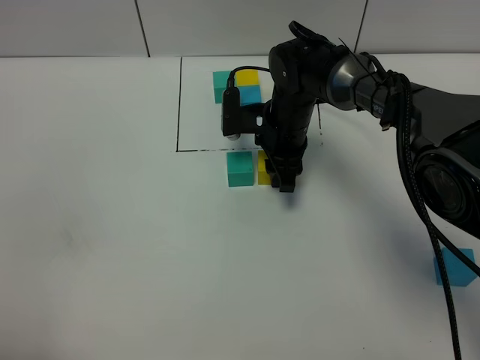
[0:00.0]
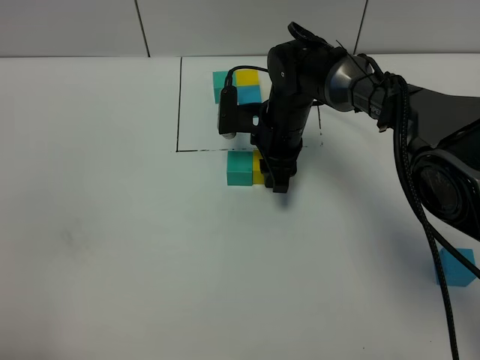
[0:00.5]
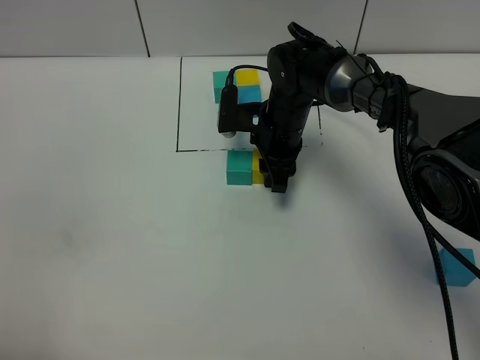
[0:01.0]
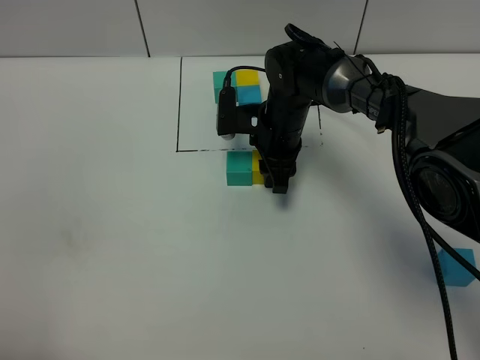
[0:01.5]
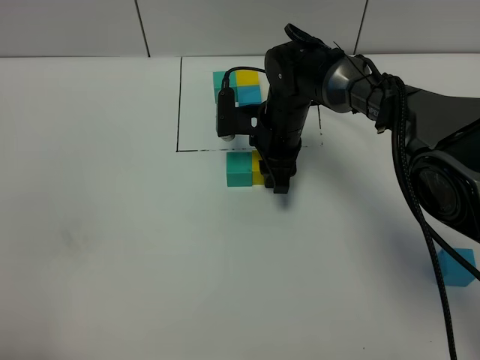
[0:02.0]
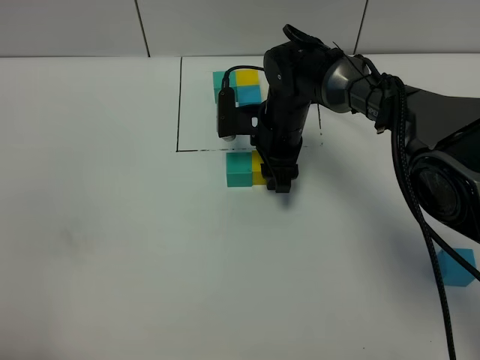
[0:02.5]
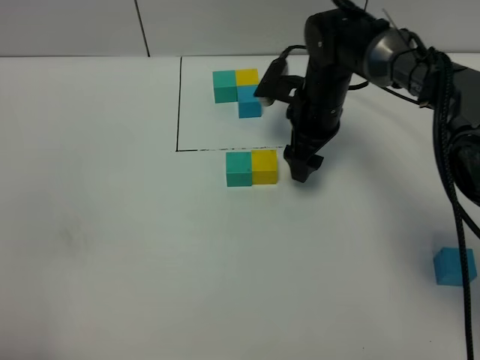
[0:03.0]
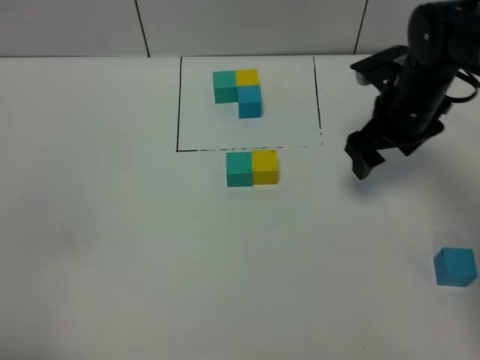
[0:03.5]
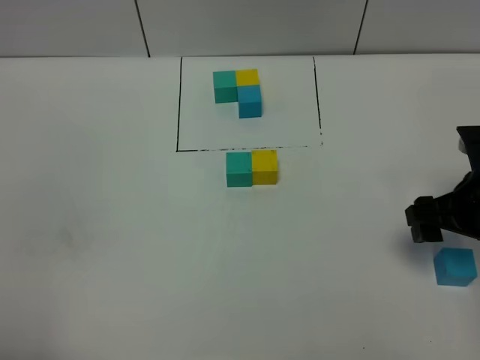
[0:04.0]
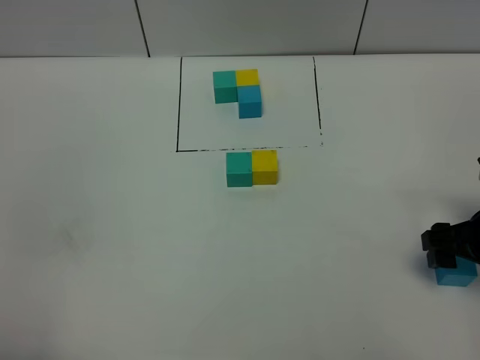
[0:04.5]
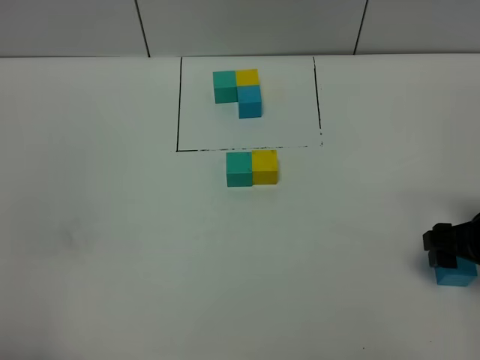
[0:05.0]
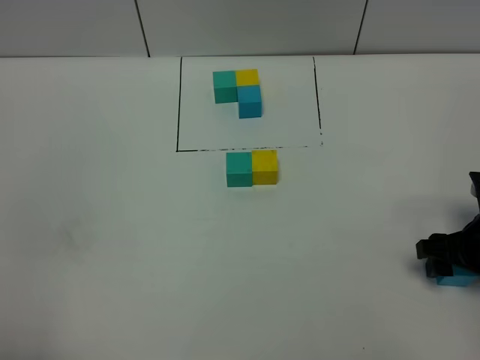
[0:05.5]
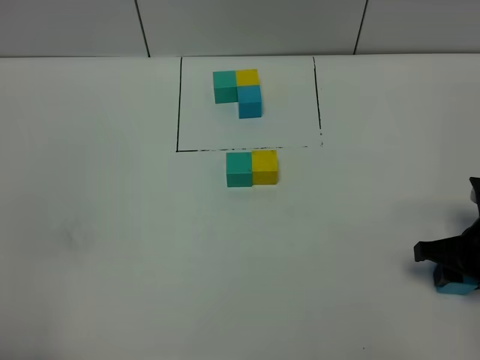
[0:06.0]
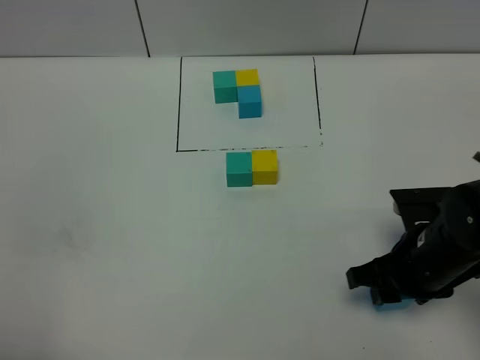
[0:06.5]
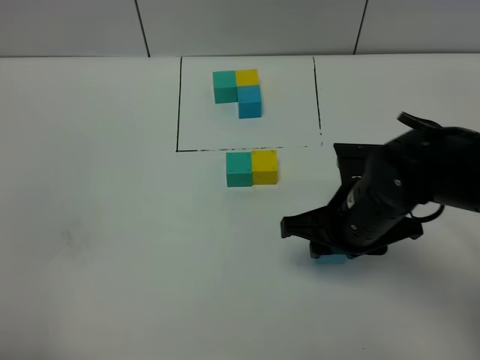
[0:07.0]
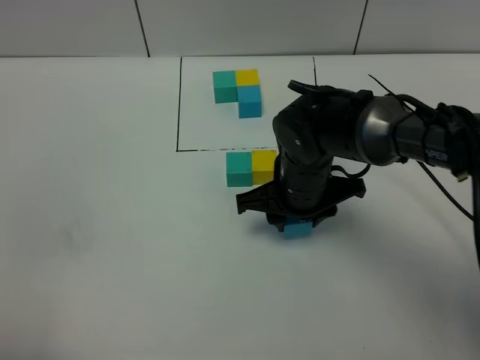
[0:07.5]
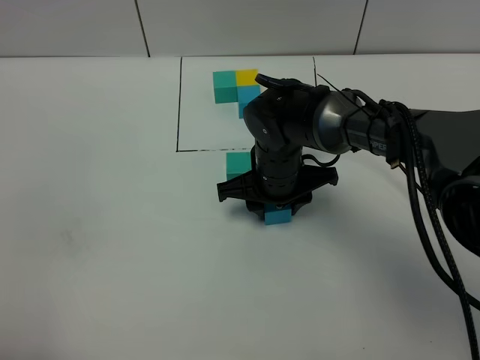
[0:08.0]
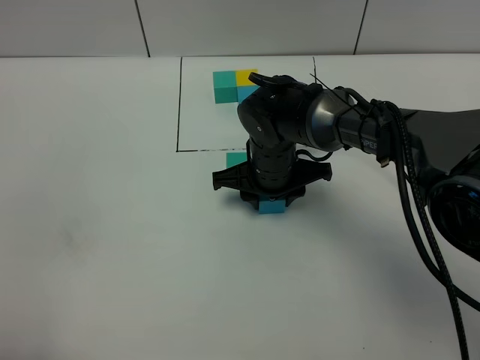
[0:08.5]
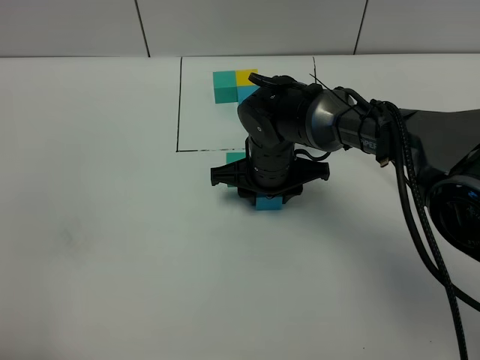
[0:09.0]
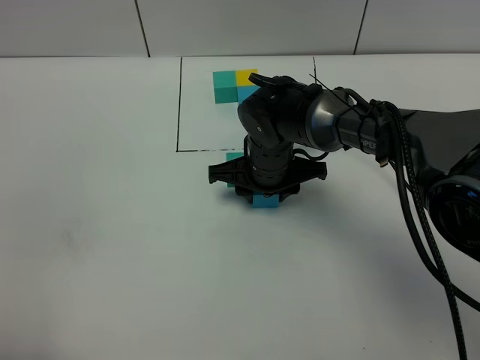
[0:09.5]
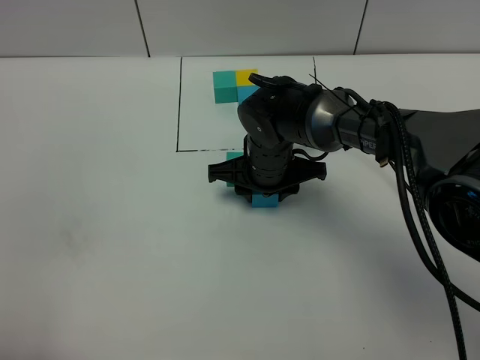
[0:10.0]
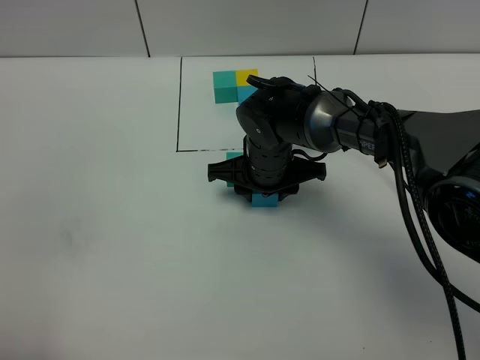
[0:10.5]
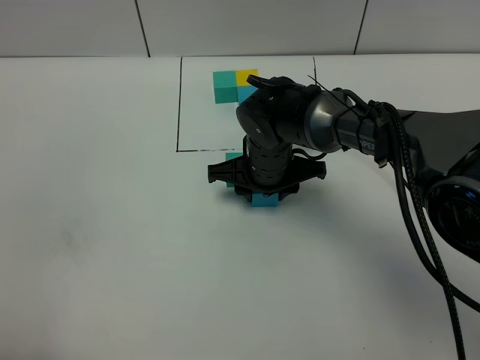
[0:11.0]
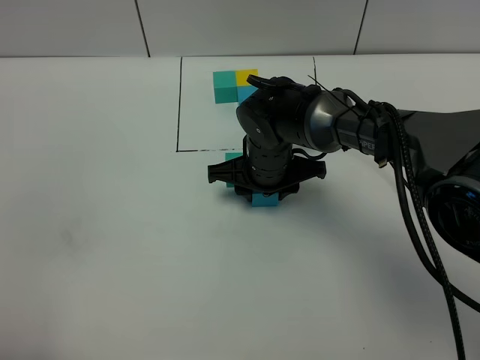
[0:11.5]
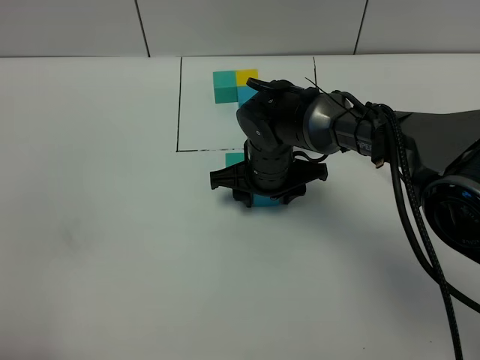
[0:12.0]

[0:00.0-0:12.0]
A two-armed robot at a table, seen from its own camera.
Task of the whole recording: According to the building block template in front, assemble the scattered blocks together.
Step, 0:00.0 to 0:02.5: Put the yellow build block on the right of the green build block.
Step, 0:03.0 to 0:12.0: Put the blue build block on the behind of the yellow build block.
0:00.0 to 0:02.0: Both grippers stay about where they are.
0:02.0 to 0:04.0: The right gripper shifts approximately 30 cm to the right and backward, and opens.
0:04.0 to 0:06.0: The right gripper is displaced downward by roughly 5 cm, and closes.
0:06.0 to 0:08.0: The right gripper shifts about 30 cm to the left and forward.
0:08.0 to 0:10.0: The grippers stay close to where they were, moving slightly.
0:10.0 to 0:12.0: The two grippers keep their place.

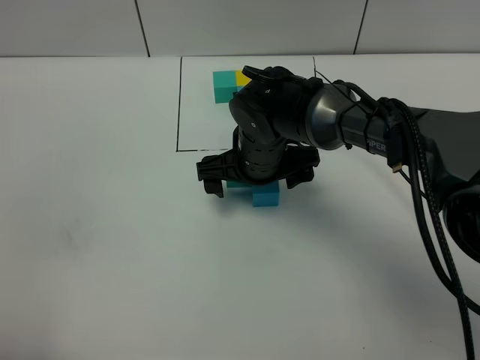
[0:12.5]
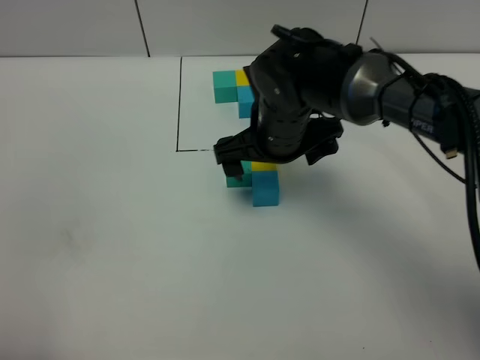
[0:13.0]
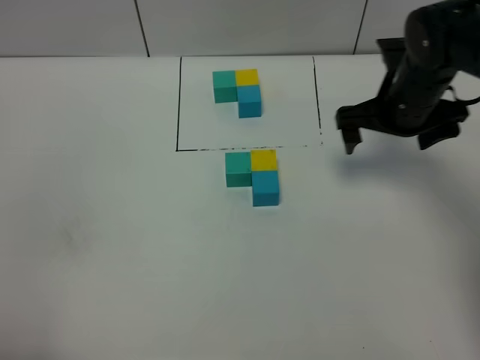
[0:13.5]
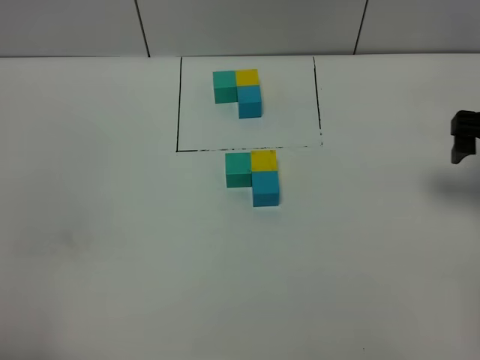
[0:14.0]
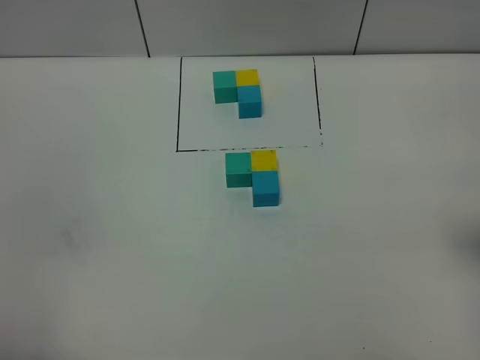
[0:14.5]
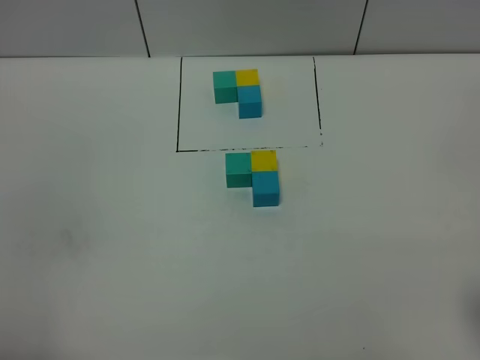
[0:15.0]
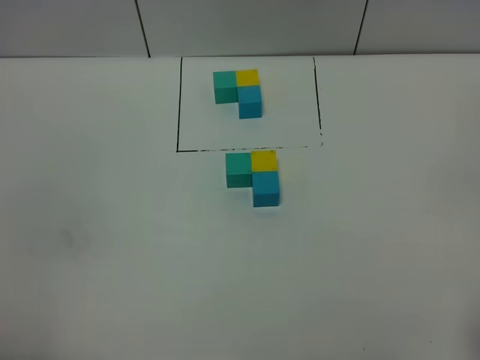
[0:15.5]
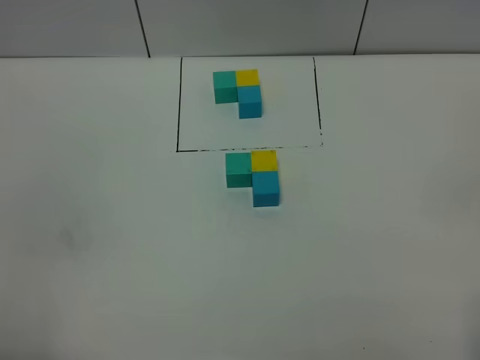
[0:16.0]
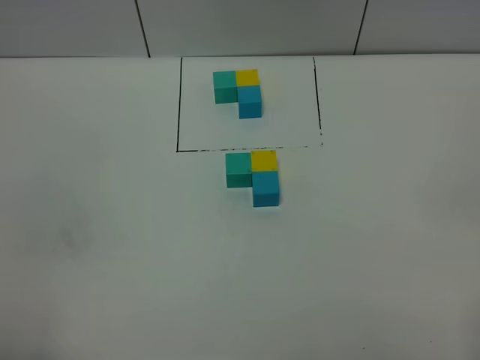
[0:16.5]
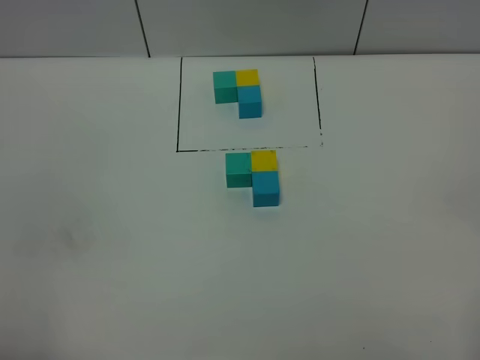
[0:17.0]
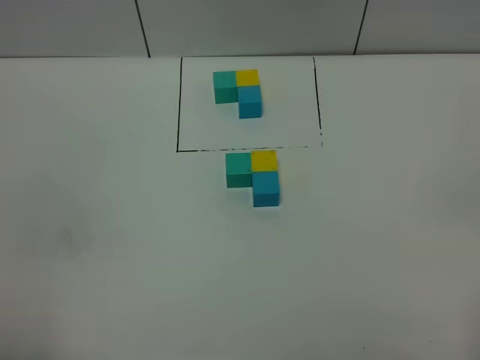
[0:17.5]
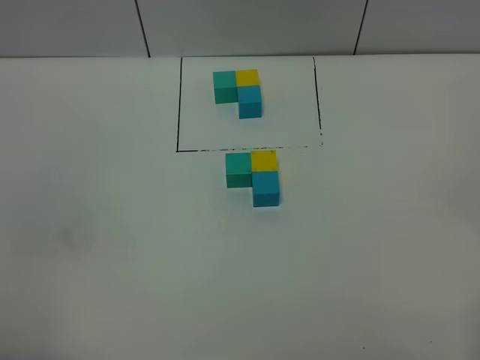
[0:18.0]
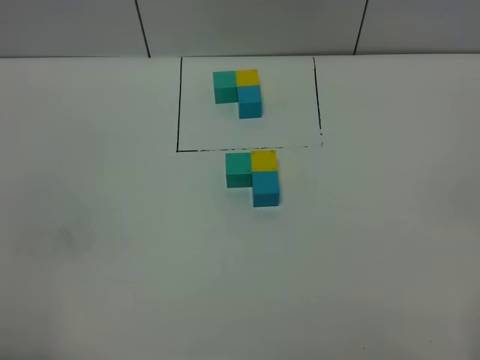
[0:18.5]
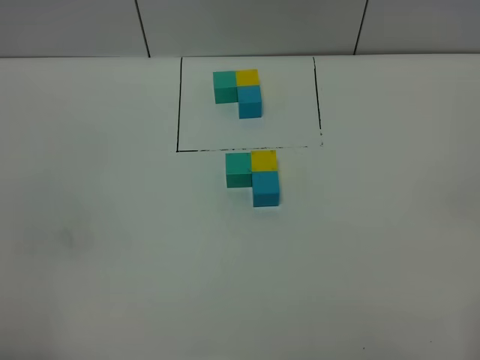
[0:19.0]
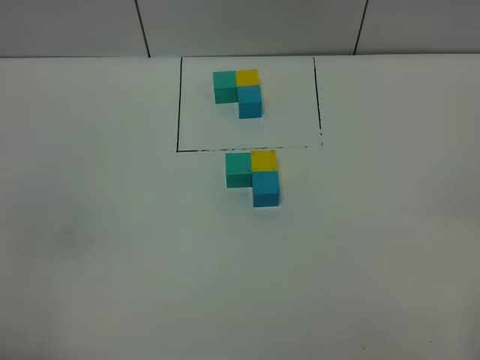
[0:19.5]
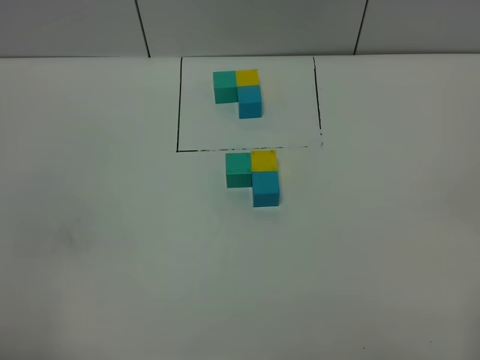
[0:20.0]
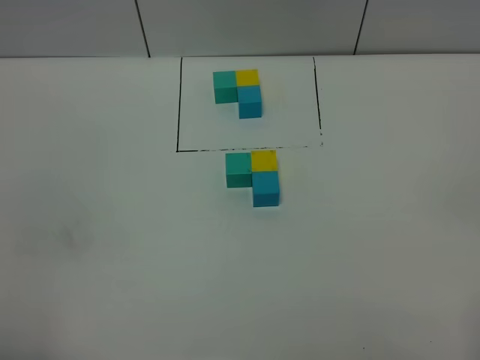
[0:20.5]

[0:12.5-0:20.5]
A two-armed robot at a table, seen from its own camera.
Task of the whole recording: According to the building block template in front, assemble the scattered blocks together.
0:12.5 to 0:14.5: The right gripper moves to the right, backward and upward, about 35 cm.
0:16.5 to 0:20.5: Neither gripper changes place.

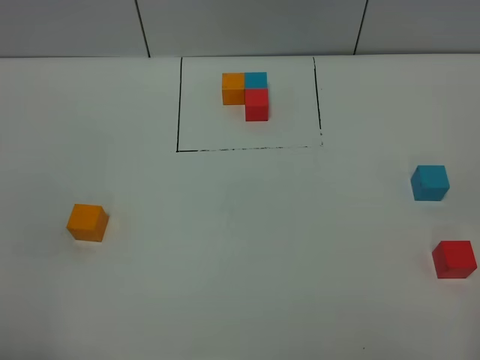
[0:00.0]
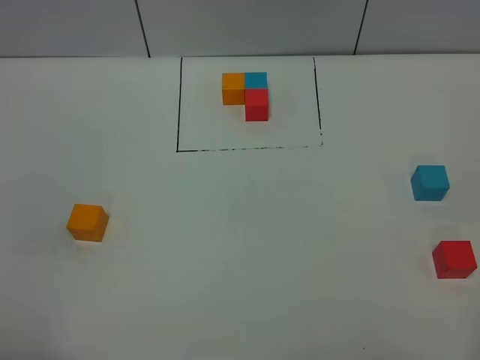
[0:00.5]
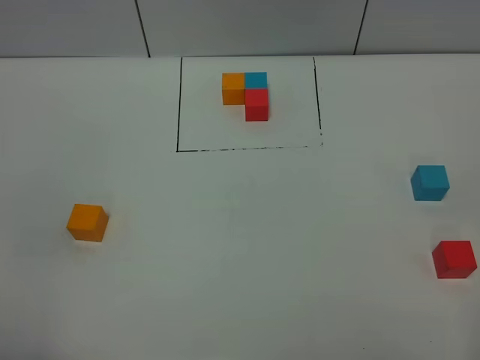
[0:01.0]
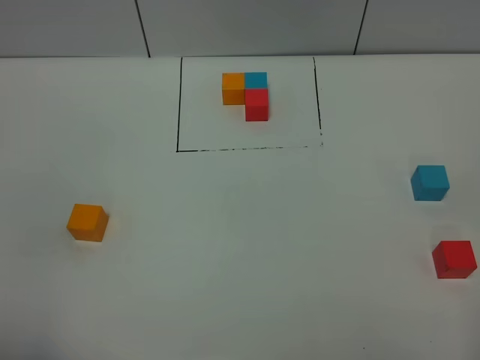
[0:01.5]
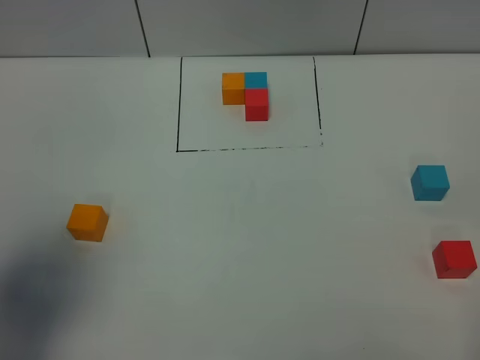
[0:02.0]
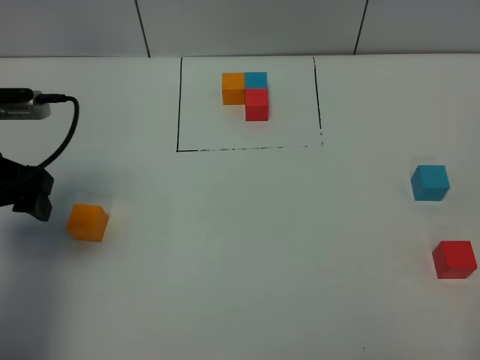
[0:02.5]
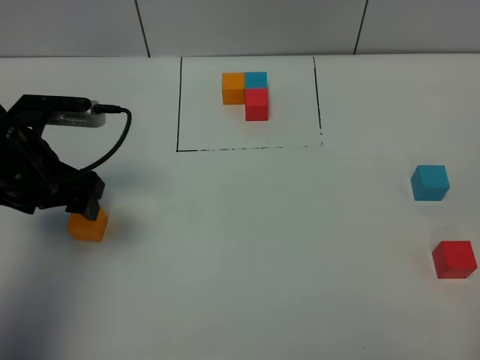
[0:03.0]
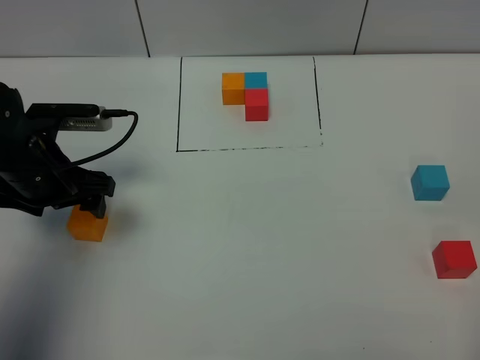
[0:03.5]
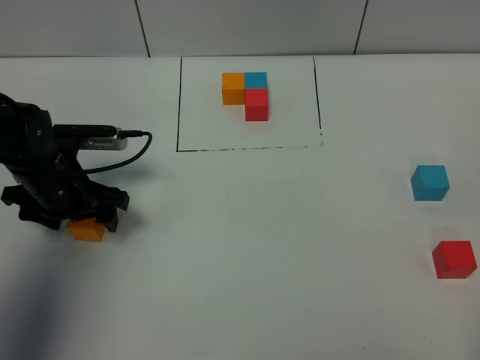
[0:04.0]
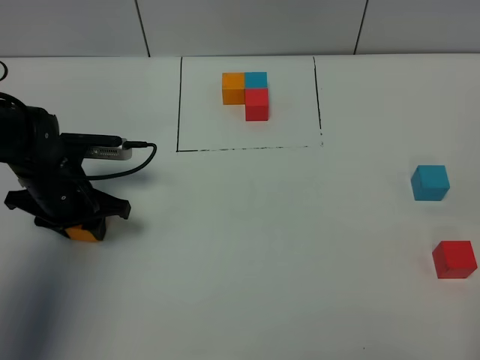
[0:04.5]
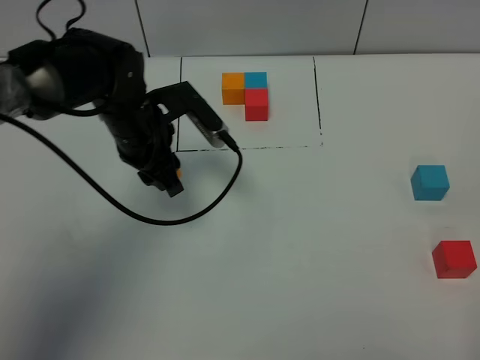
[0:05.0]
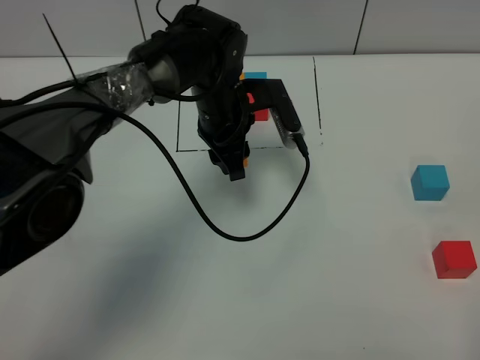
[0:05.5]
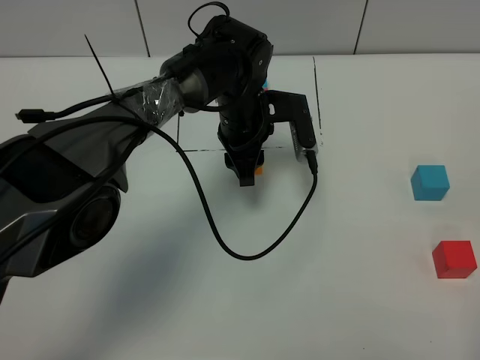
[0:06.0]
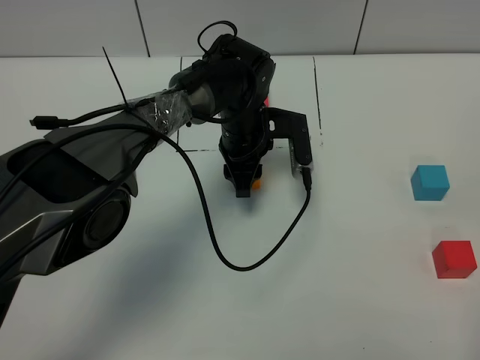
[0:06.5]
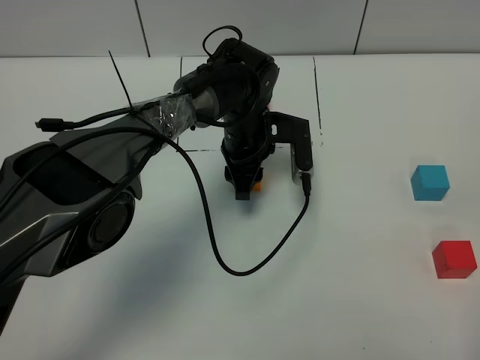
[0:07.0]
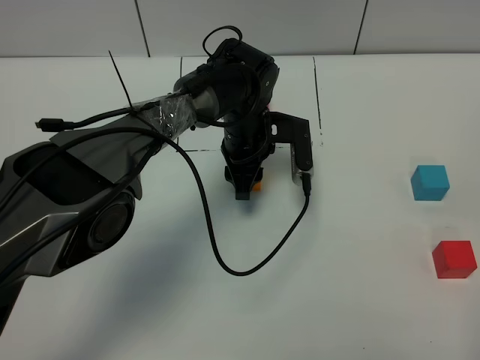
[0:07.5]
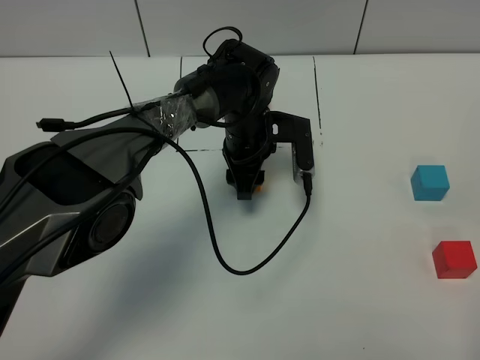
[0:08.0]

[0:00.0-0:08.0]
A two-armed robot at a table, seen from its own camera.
Task of the whole recording: According to the building block template in front, assemble the scattered blocks together.
Step, 0:00.0 to 0:08.0: Put the orange build block in the center of the table.
0:00.0 to 0:02.0: The left gripper goes roughly 15 cm forward.
0:02.0 to 0:04.0: The left gripper heads downward and forward, covering roughly 25 cm.
0:04.0 to 0:06.0: The left gripper heads to the right, covering roughly 25 cm, and closes.
0:06.0 to 0:08.0: The left gripper opens up.
